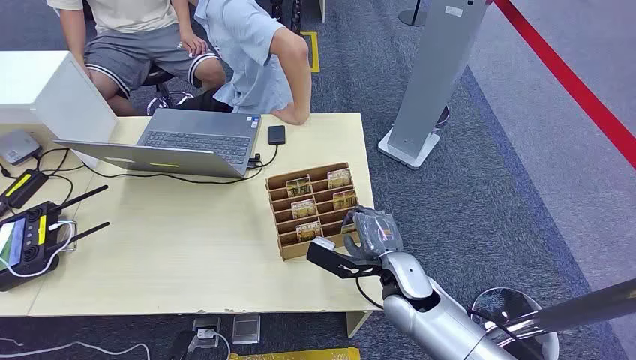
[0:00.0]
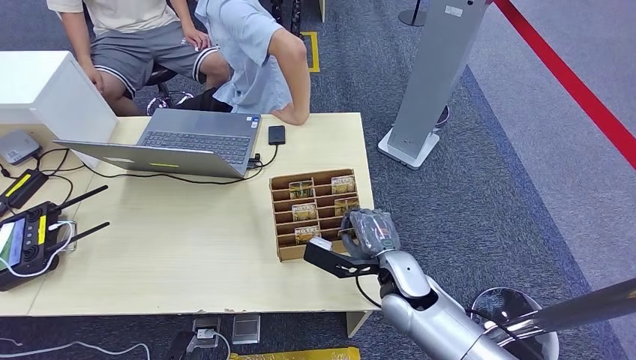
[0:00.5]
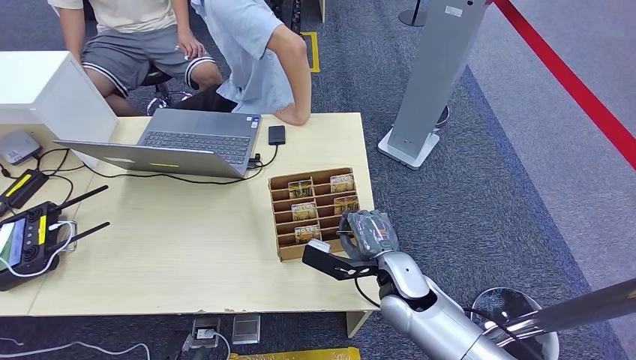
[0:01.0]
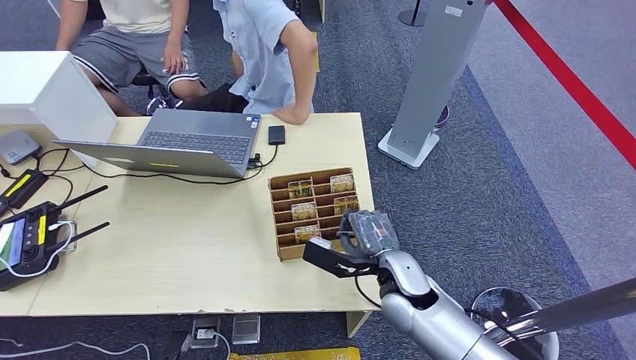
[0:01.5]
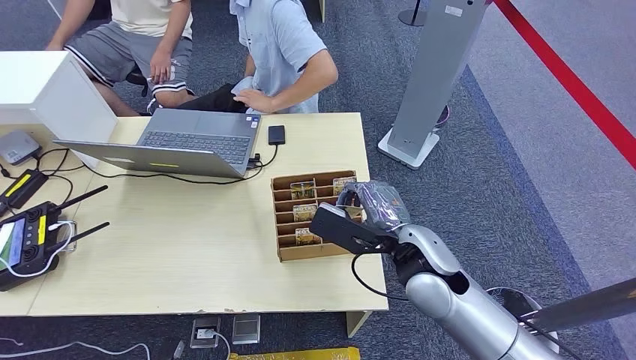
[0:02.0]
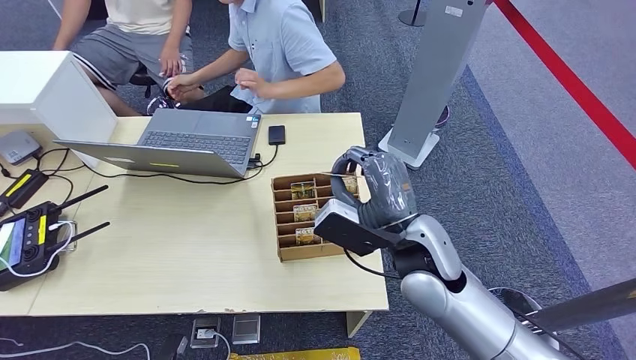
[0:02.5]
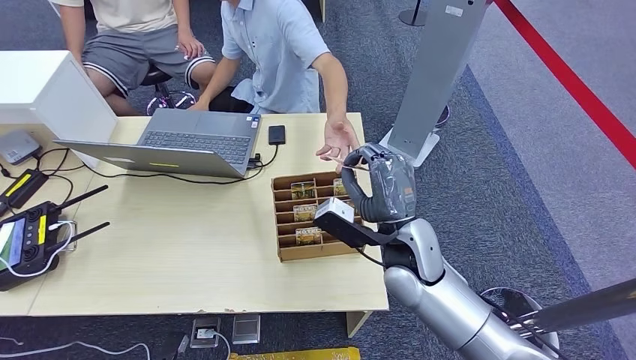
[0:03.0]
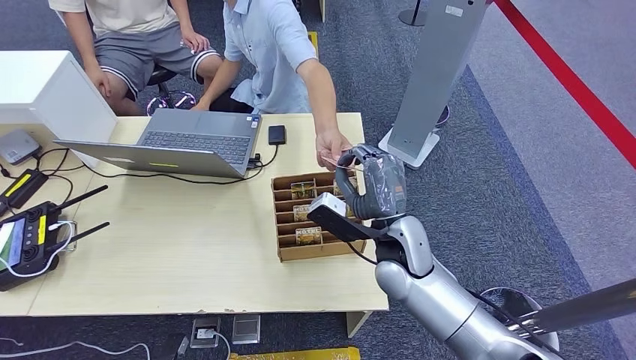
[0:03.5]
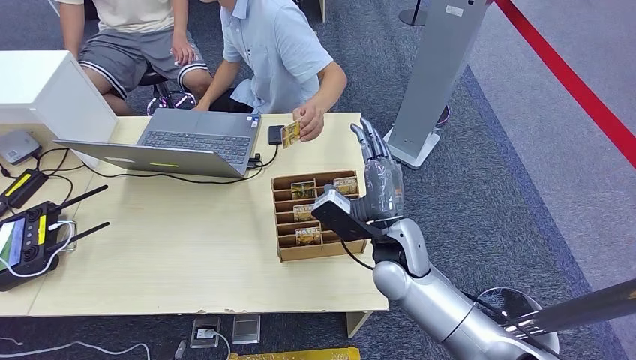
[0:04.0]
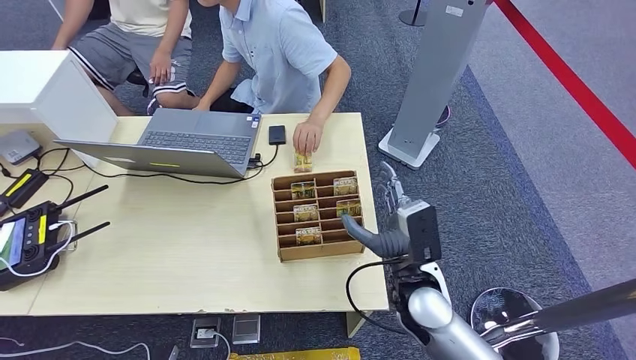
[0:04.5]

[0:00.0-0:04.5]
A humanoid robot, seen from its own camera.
Step, 0:00.0 to 0:02.0: Pick up the room card from the card holder.
Step, 0:02.5 to 0:04.0: Hand the room card to the target.
0:02.0 to 0:04.5: The right hand shifts some 5 cm downward.
